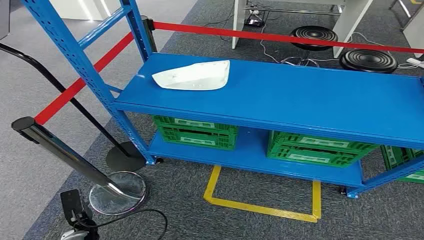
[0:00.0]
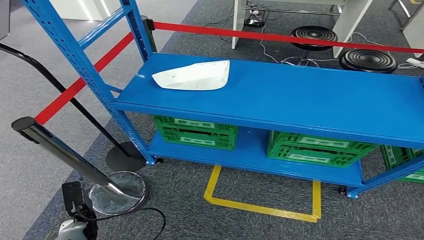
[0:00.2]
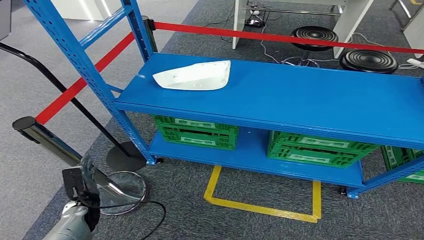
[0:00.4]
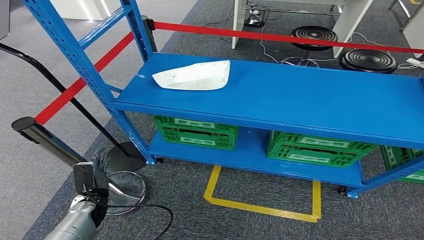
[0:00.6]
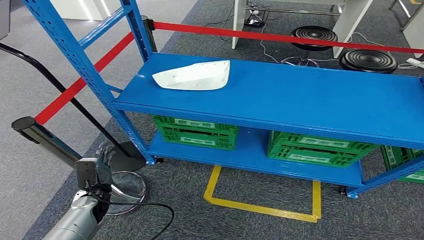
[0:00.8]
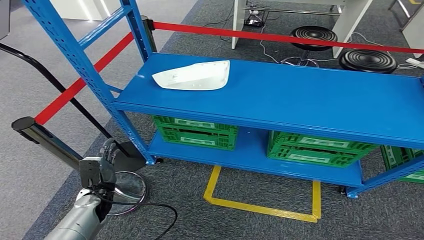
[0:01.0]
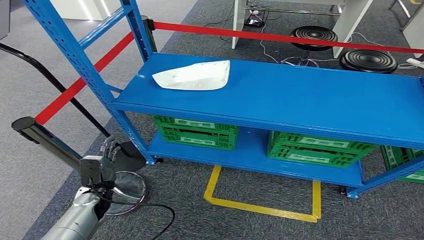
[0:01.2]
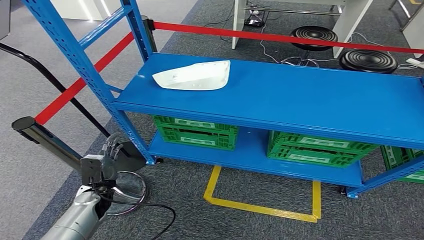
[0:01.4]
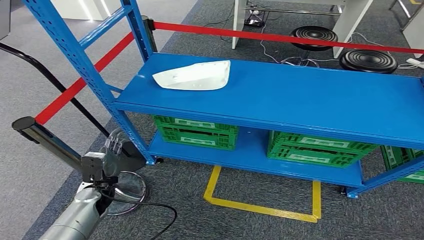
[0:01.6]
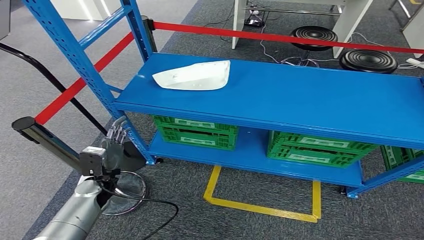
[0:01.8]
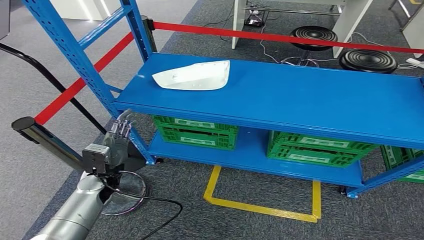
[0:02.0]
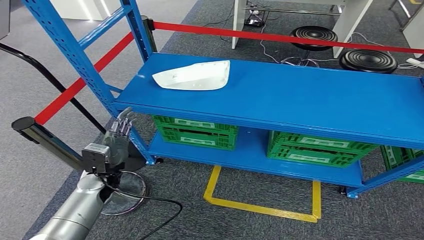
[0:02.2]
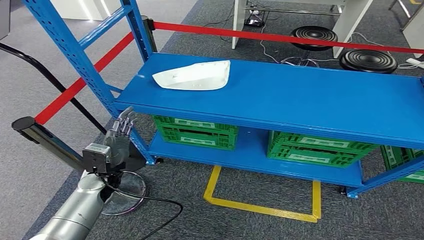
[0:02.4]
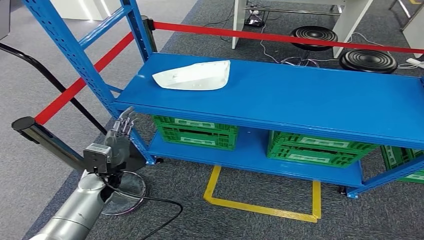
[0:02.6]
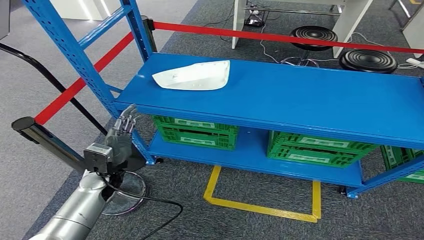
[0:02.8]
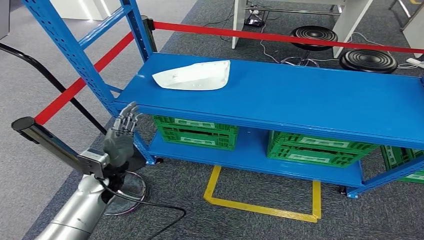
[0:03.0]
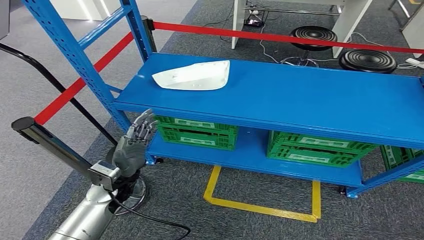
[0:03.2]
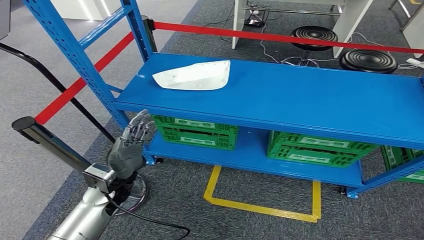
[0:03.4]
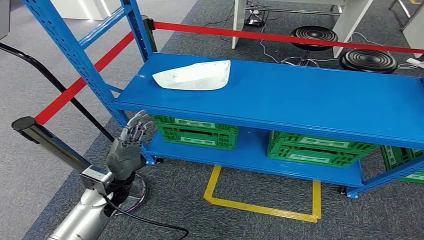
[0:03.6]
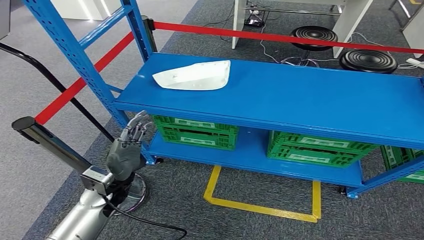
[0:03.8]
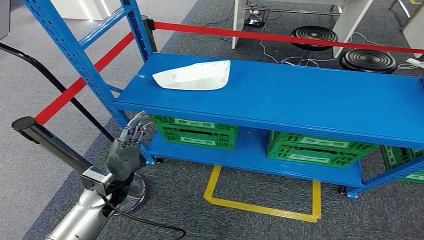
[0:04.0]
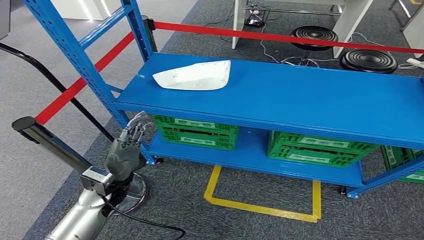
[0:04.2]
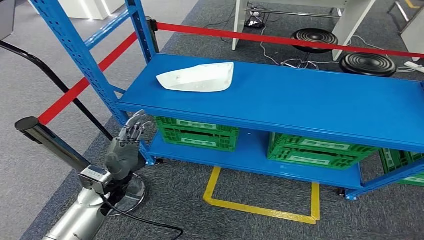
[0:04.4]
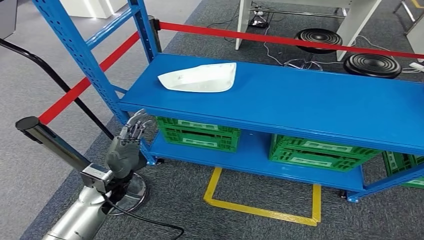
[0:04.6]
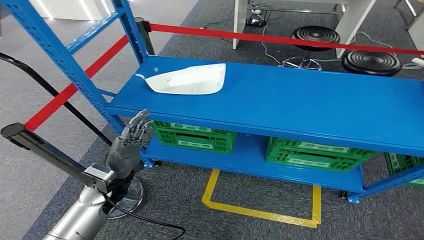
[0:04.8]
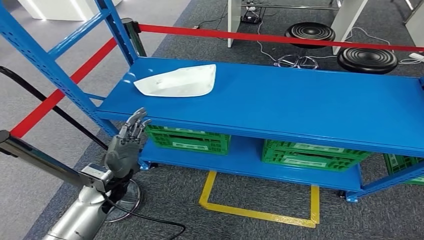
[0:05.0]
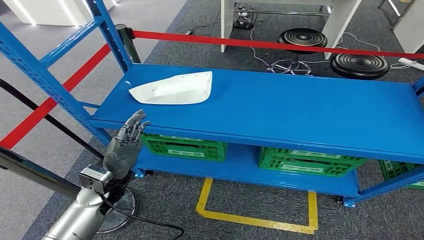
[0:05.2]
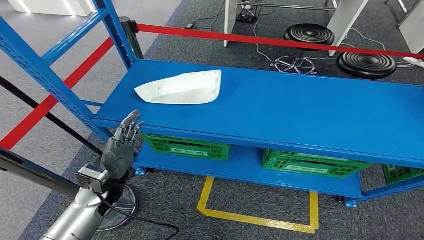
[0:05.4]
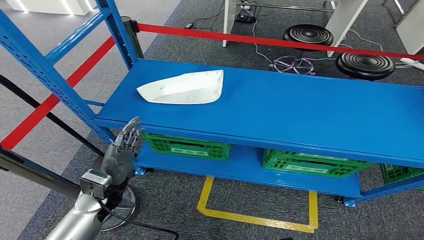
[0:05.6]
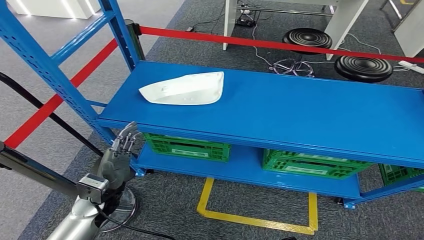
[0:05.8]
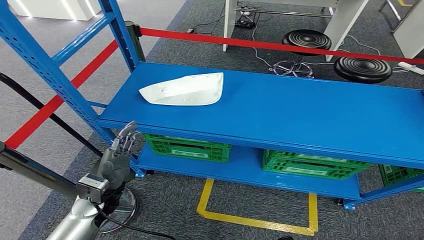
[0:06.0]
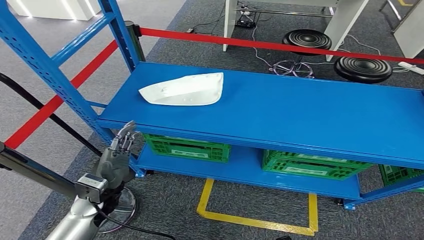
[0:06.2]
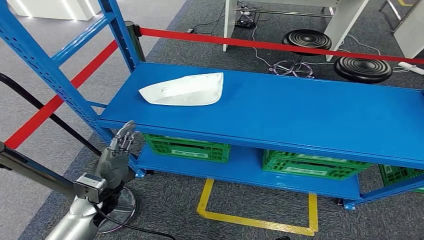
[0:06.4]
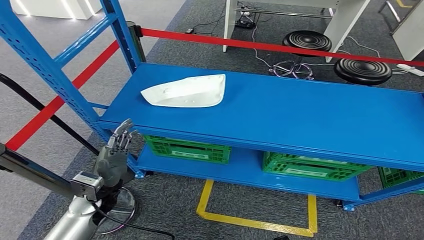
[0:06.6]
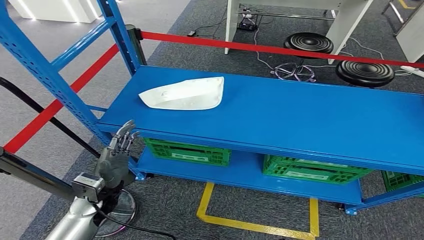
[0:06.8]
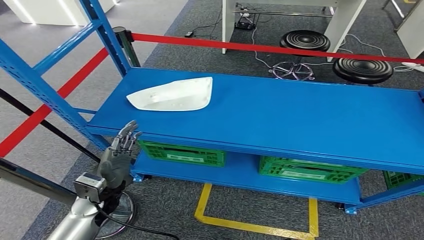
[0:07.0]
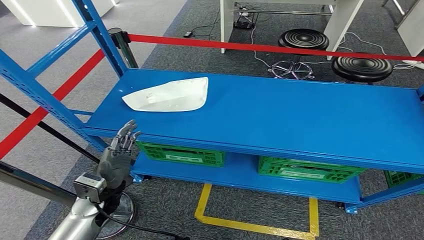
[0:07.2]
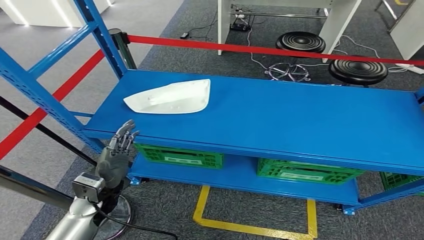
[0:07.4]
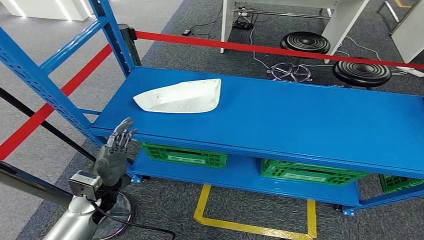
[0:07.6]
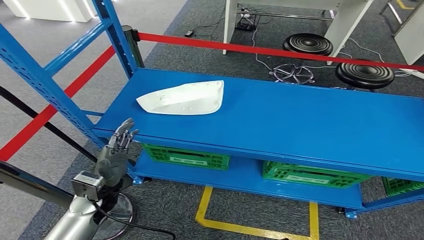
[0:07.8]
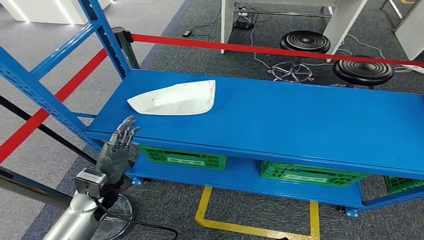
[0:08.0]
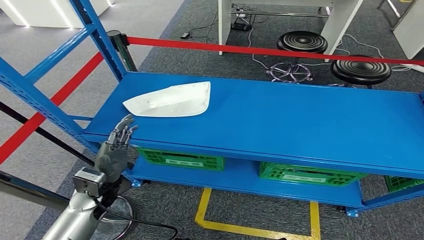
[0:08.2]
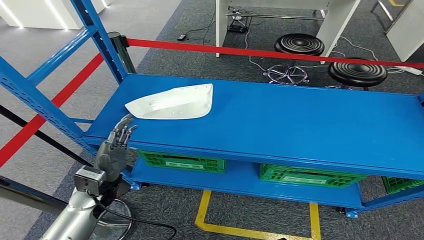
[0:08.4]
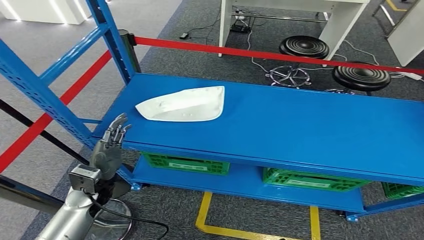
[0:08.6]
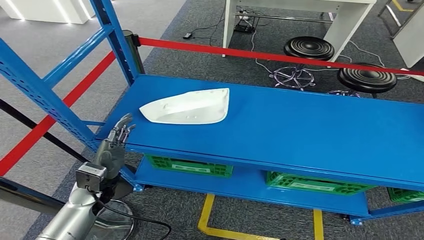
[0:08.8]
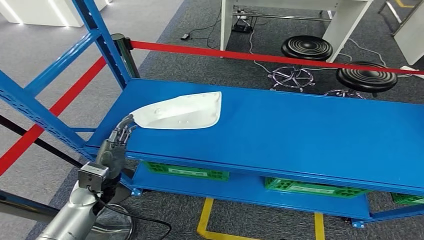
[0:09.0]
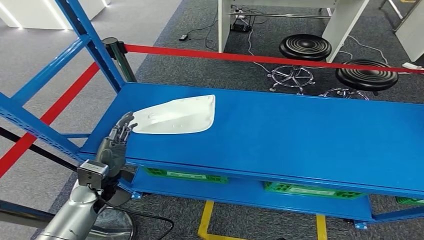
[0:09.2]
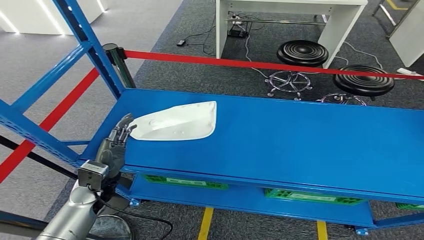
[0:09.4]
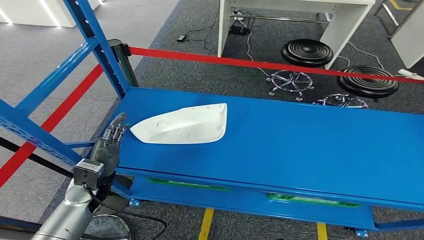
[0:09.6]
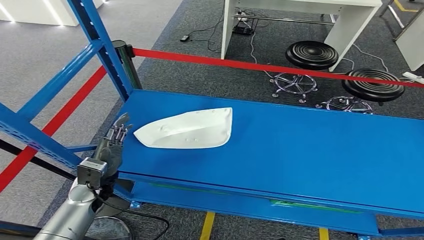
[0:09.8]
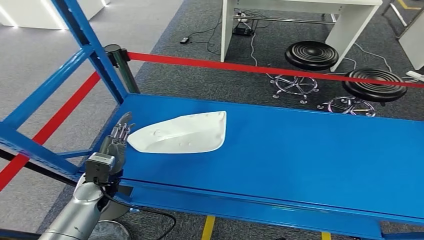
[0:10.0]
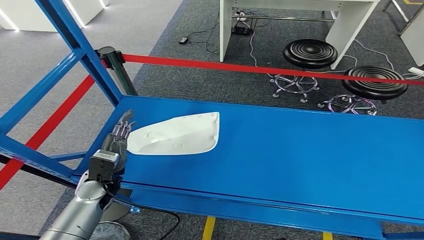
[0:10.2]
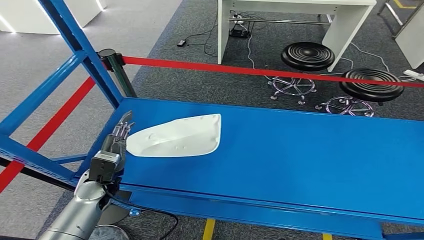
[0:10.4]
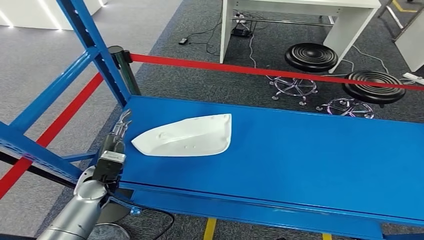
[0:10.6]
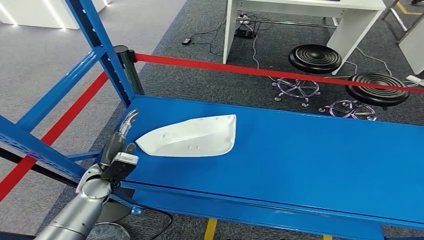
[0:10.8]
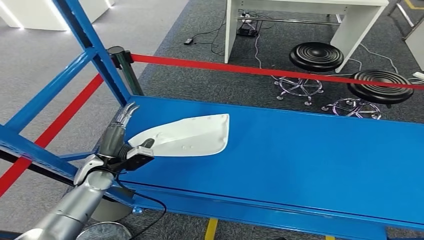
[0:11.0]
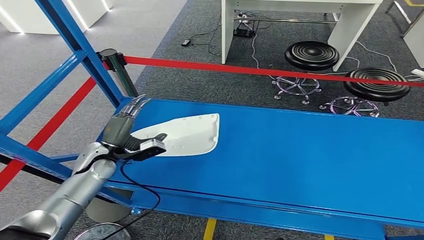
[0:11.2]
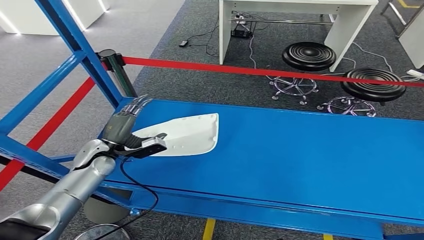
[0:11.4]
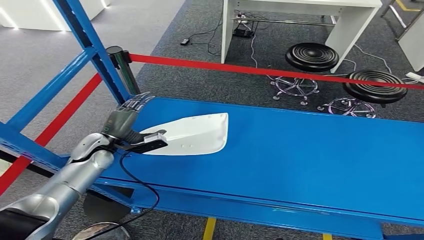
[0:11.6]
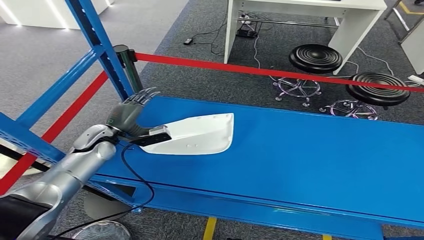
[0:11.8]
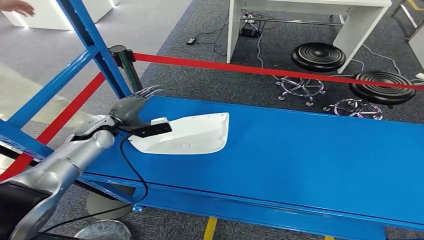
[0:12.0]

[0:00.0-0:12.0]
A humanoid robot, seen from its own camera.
0:01.6 to 0:03.0: The left hand shifts about 10 cm upward.
0:03.0 to 0:04.4: There are only small adjustments of the hands.

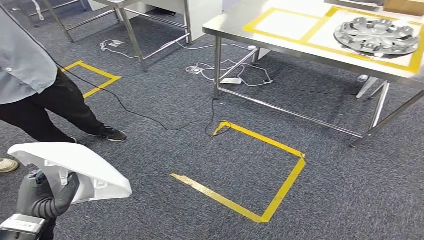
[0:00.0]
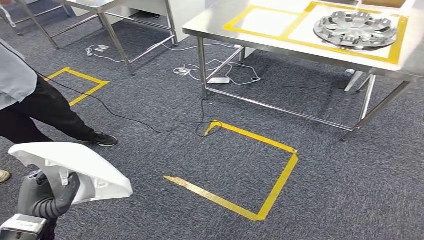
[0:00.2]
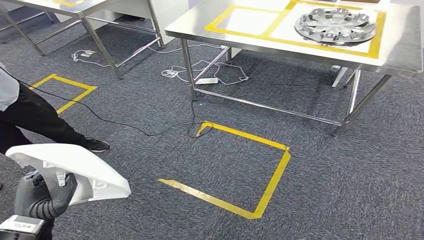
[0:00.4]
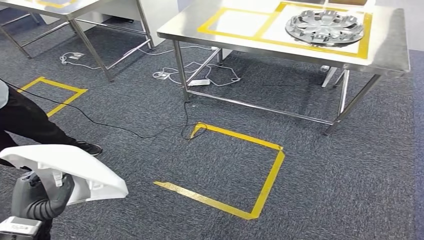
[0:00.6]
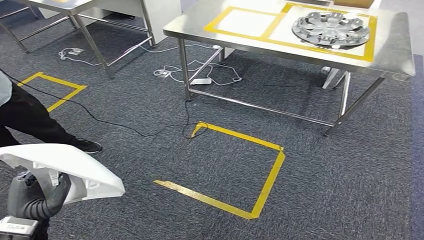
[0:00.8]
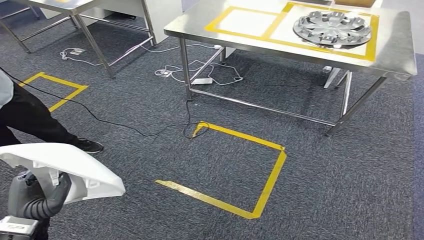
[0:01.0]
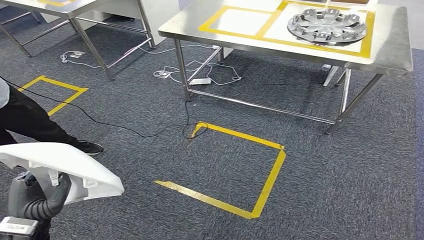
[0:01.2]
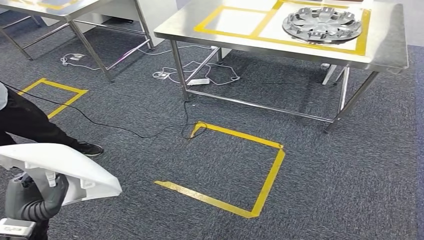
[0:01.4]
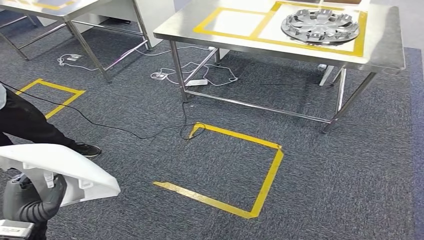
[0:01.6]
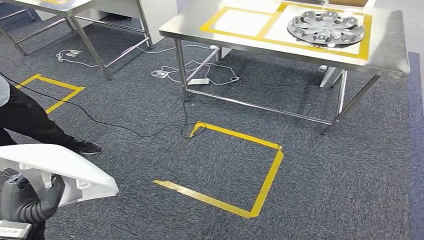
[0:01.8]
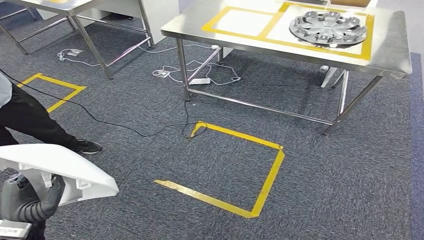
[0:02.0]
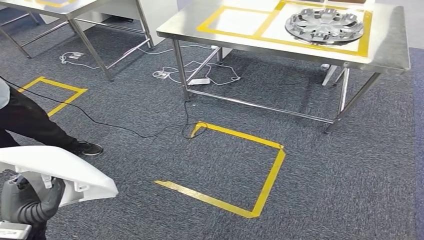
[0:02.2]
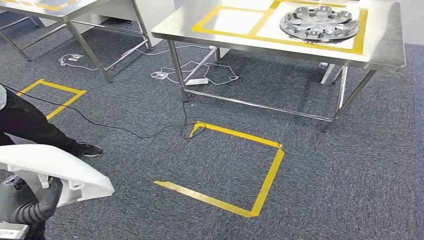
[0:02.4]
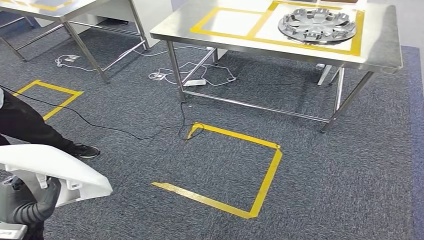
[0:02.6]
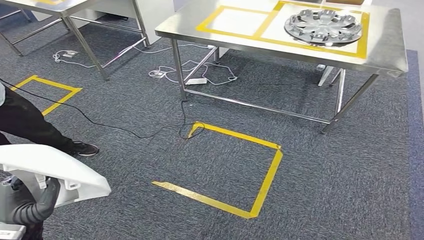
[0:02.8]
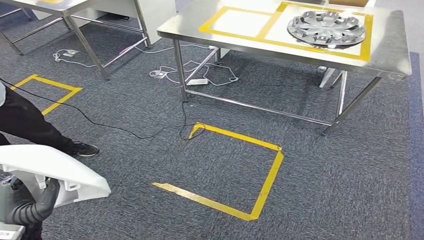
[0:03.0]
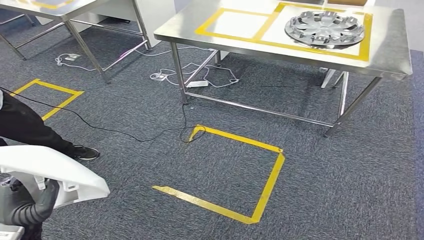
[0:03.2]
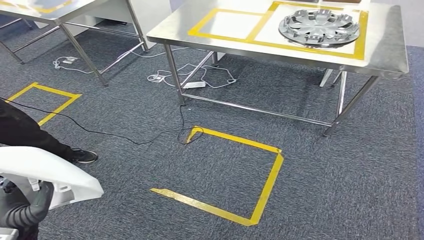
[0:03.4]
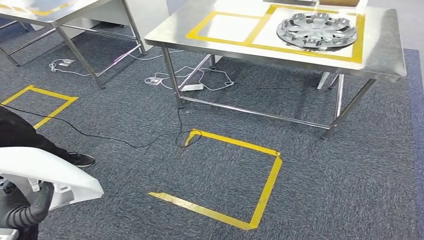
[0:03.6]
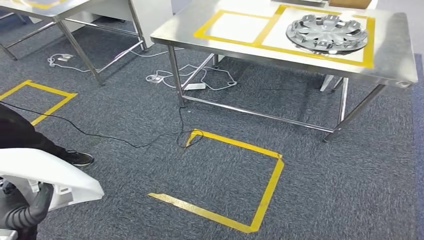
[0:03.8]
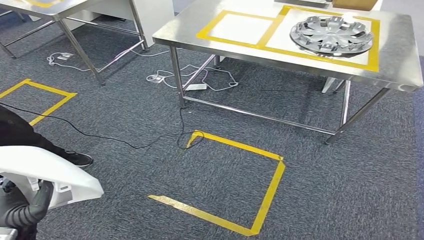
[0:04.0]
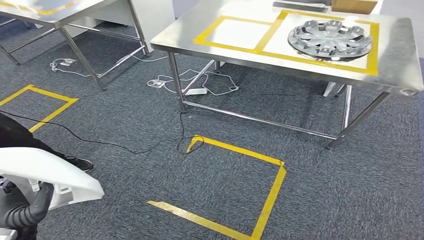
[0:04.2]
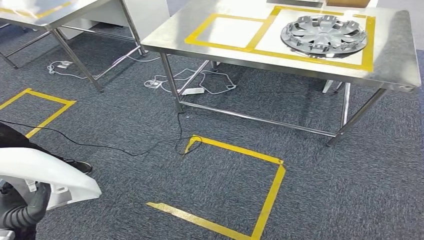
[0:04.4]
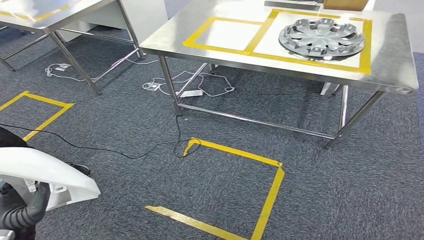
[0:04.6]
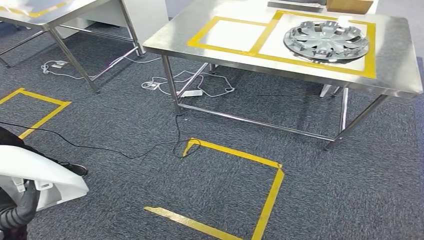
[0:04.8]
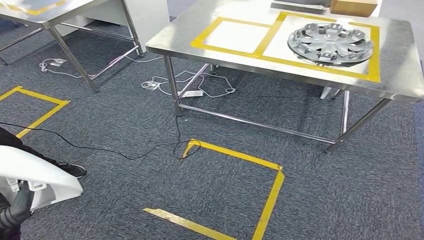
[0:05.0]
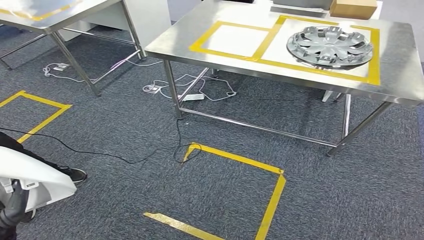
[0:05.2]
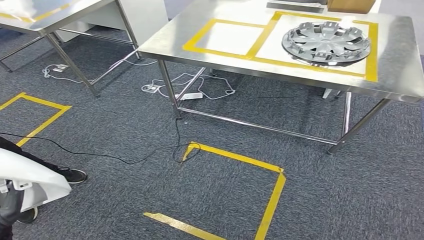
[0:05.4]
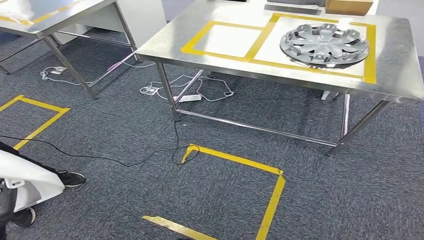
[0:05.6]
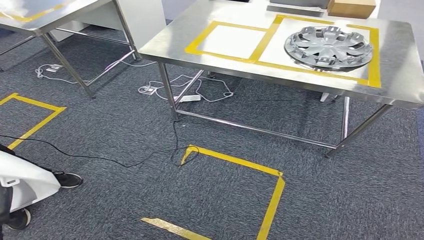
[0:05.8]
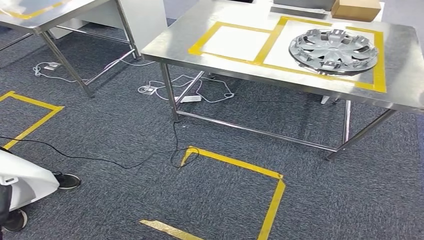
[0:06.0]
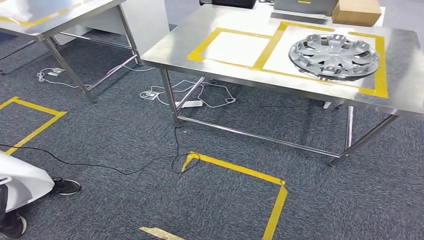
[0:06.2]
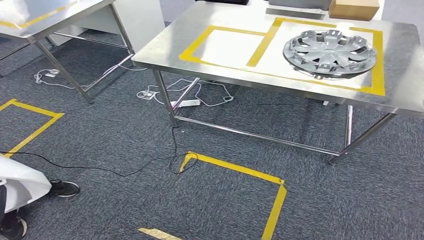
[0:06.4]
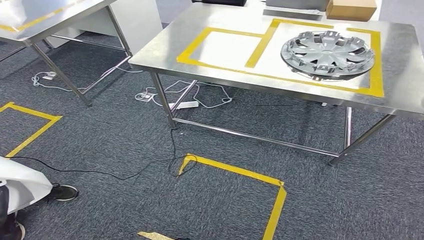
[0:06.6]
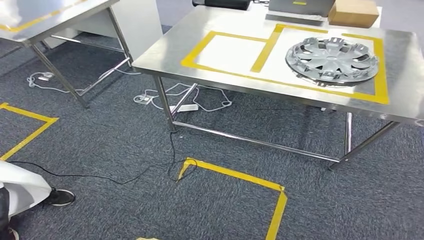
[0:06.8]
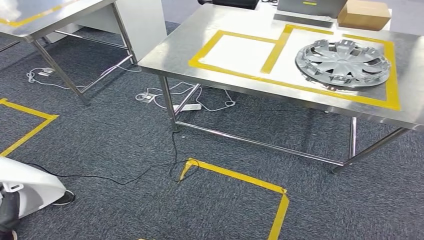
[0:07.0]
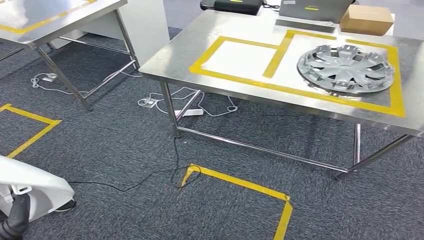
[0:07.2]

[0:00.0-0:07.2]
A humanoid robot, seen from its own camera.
0:01.4 to 0:02.8: Both hands stay put.
